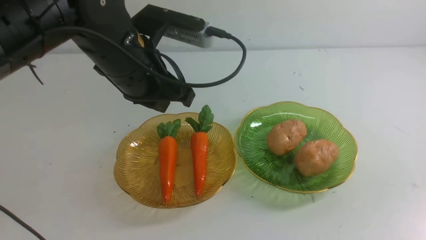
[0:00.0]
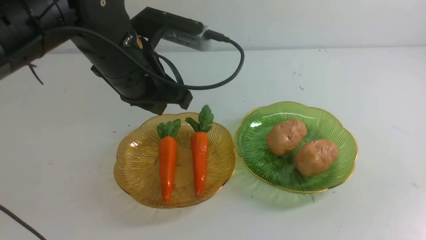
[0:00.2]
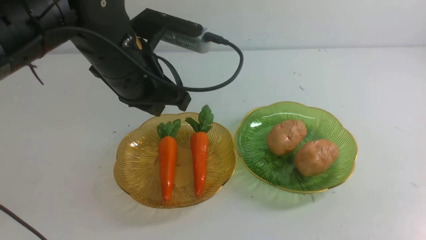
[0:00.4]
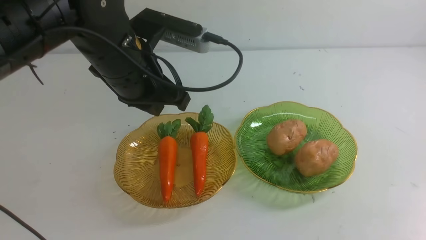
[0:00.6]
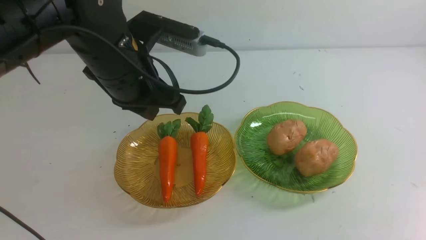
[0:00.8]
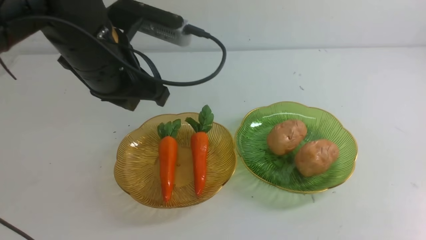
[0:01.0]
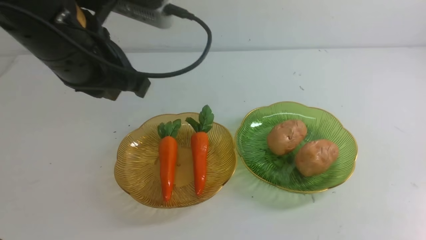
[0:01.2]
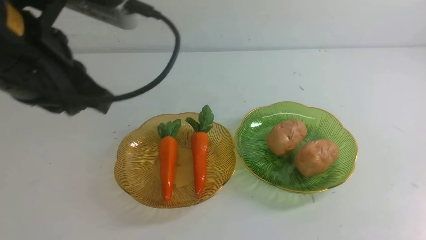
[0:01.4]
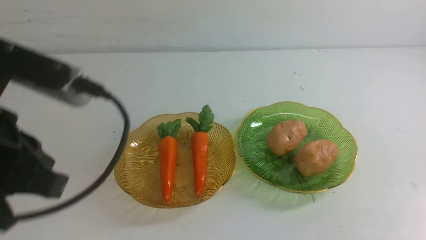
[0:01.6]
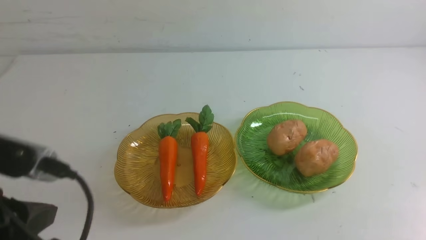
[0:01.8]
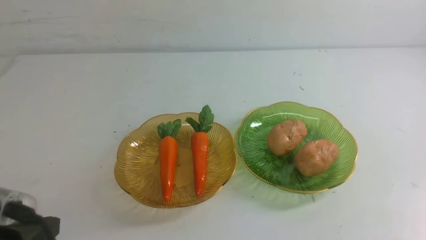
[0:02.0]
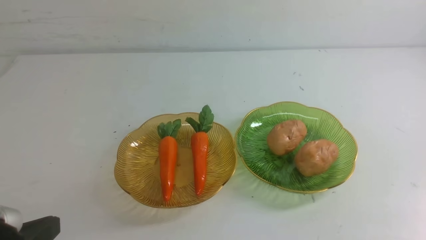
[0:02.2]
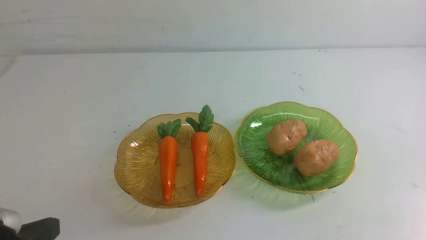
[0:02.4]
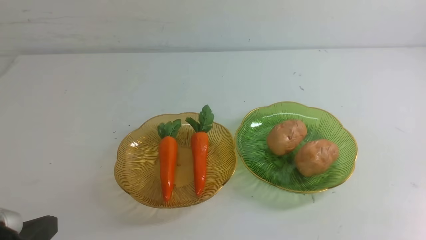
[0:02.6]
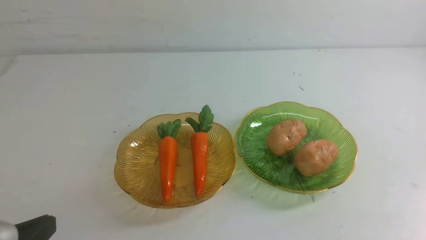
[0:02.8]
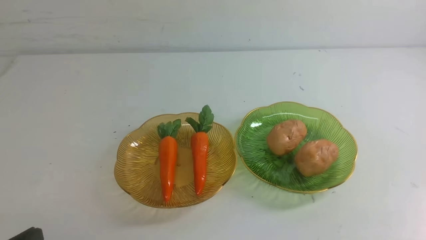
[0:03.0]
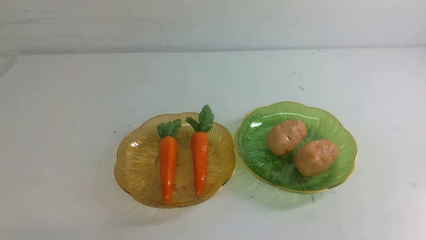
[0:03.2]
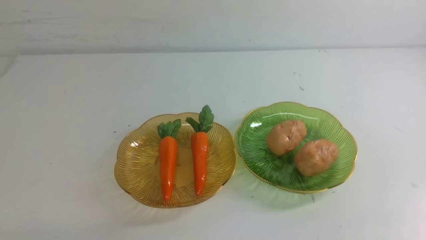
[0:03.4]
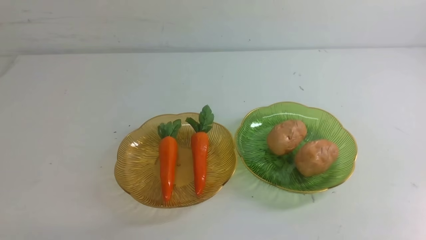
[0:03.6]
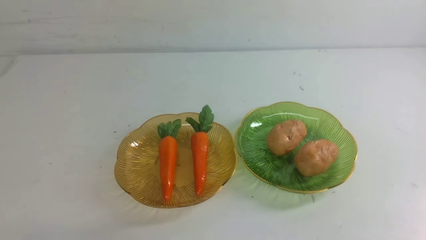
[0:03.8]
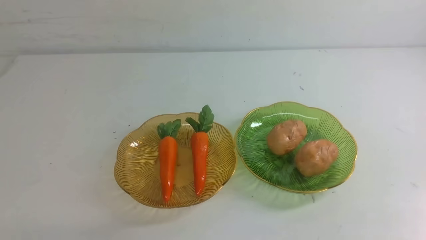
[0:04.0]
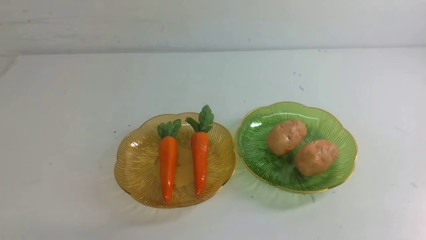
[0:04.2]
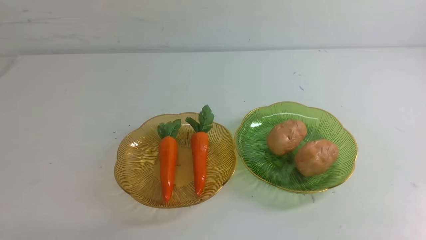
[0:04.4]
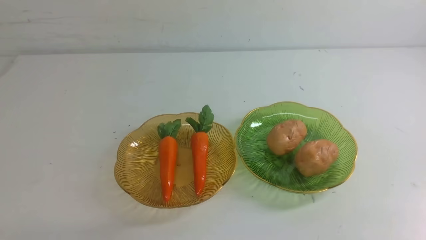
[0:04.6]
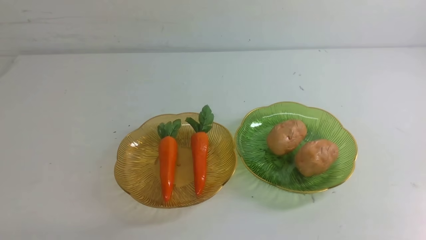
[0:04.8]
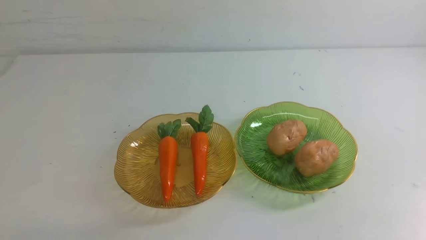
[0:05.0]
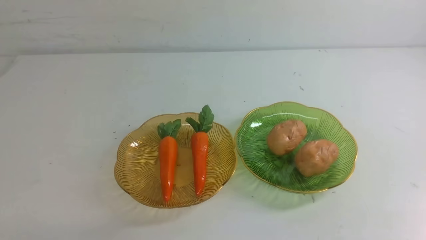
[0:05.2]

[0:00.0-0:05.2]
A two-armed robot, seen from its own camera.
0:00.0 to 0:01.8: The left gripper goes some 25 cm backward and to the left. The right gripper moves downward, about 10 cm.
0:01.8 to 0:03.4: The left gripper travels downward by some 15 cm.
0:03.4 to 0:05.2: The two grippers keep their place.
